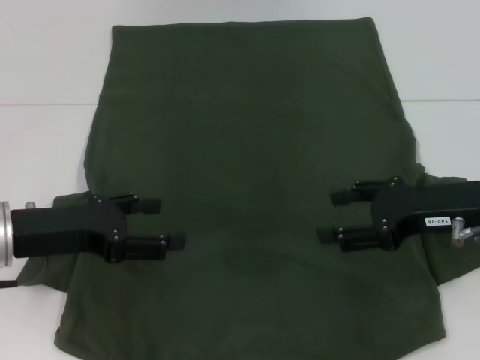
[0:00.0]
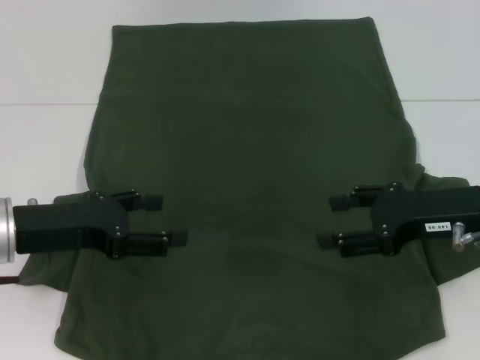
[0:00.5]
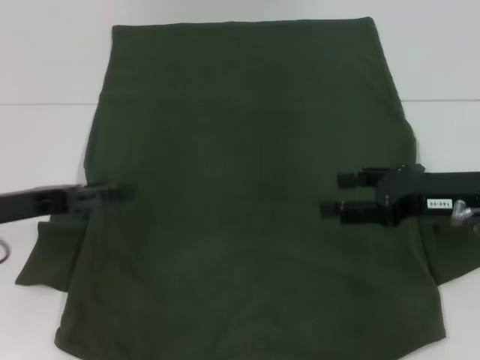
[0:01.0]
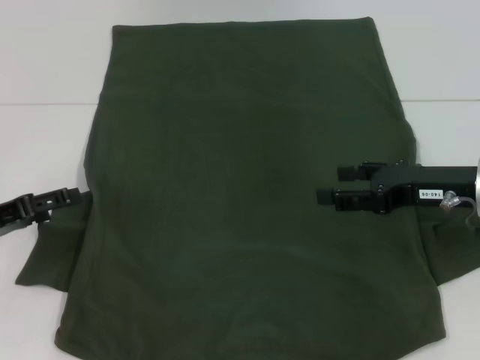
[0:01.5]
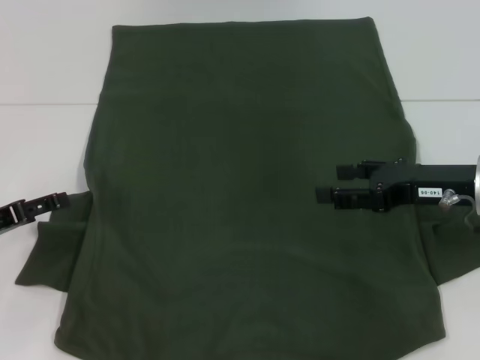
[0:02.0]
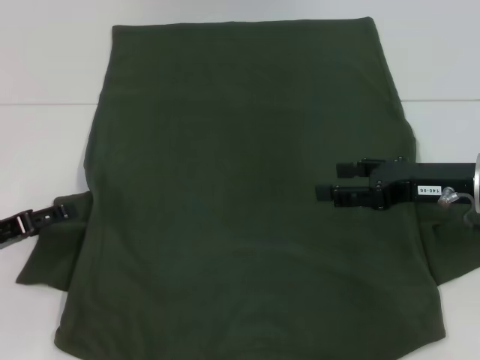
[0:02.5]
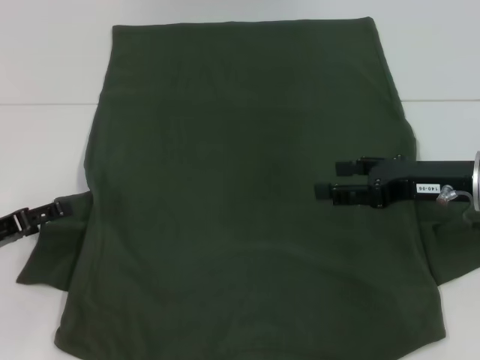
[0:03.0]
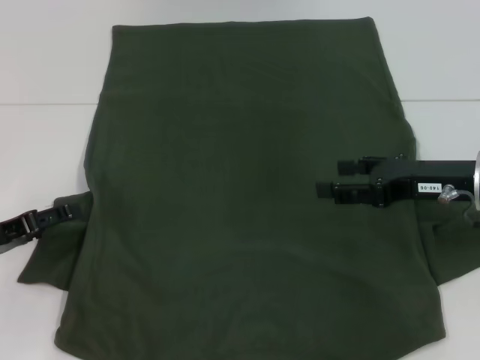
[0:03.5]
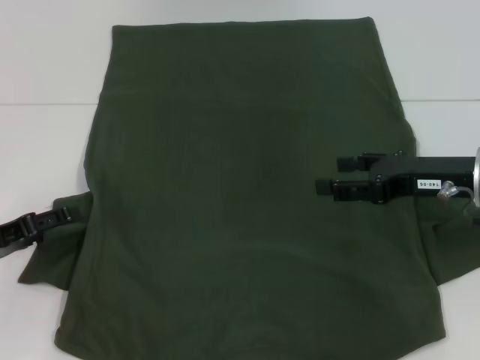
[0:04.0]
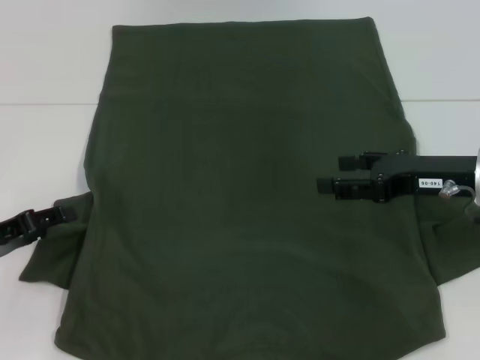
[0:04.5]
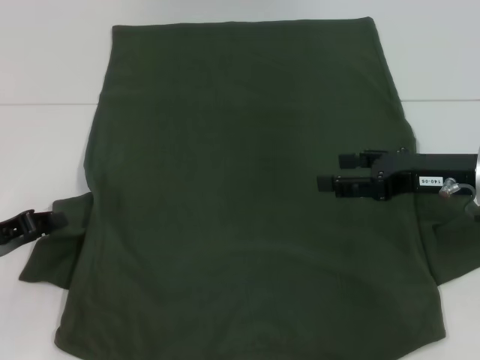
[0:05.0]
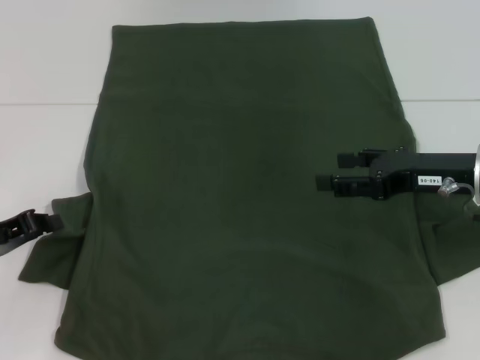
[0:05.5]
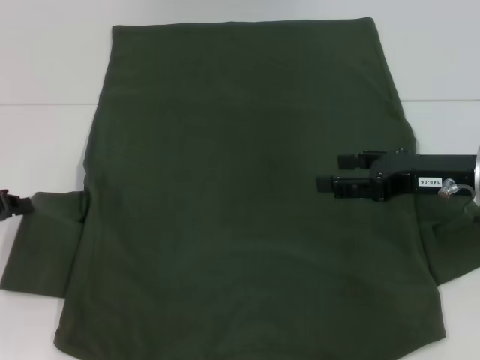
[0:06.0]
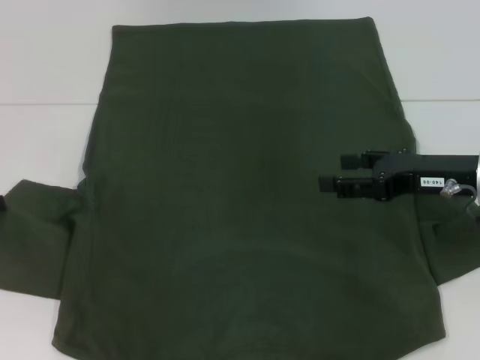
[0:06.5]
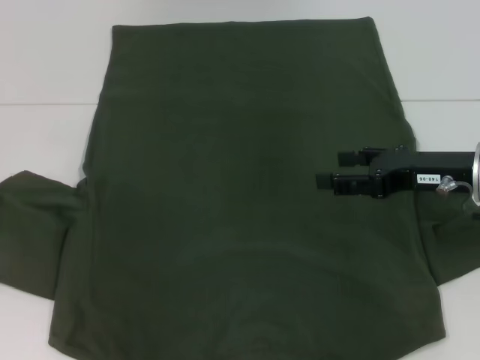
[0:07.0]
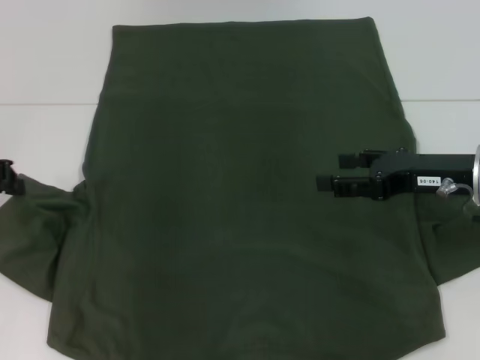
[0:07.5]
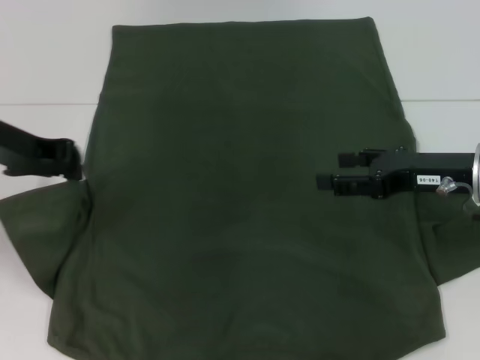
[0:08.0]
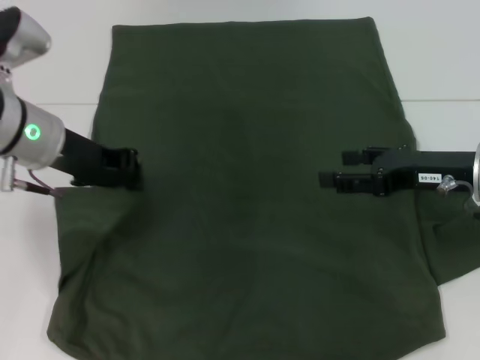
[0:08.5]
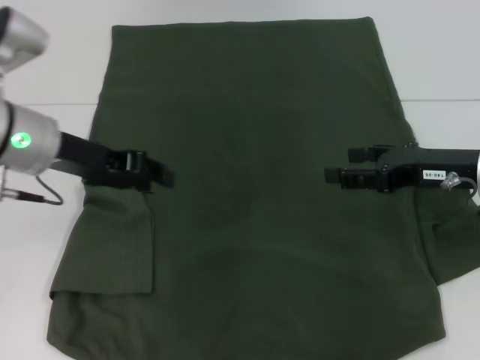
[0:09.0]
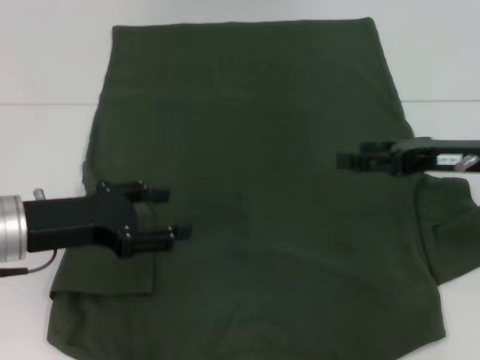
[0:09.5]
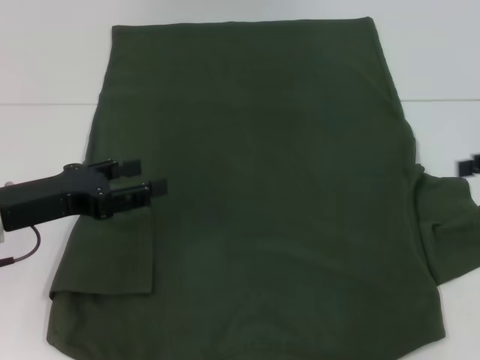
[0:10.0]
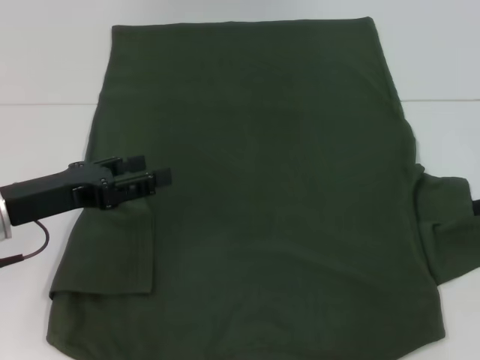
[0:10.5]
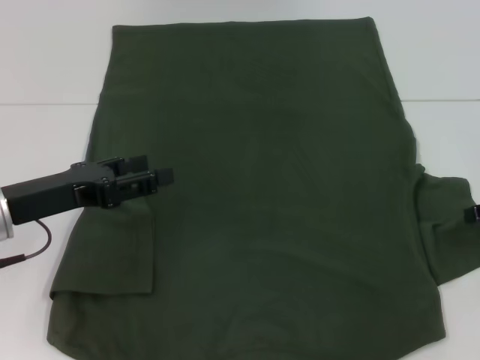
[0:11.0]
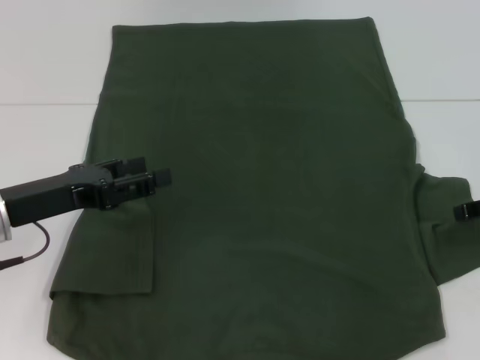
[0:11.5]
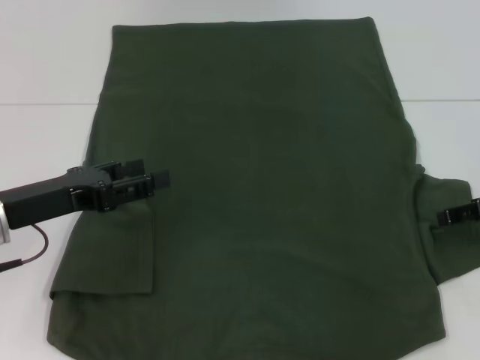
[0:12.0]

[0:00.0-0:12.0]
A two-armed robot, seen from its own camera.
Step, 0:00.0 to 0:08.5: Fold the bottom left sleeve with your left hand.
0:00.0 to 0:02.0: The left gripper shifts roughly 10 cm to the left.
0:02.0 to 0:04.0: The grippers stay close to where they were, moving slightly.
0:04.0 to 0:06.0: The left gripper closes its fingers.
0:06.0 to 0:08.0: The left gripper travels upward, to the right and forward by approximately 15 cm.
0:08.0 to 0:10.0: The left gripper goes some 10 cm backward and downward, and opens up, while the right gripper heads to the right, covering approximately 10 cm.
0:10.0 to 0:12.0: The right gripper is displaced downward by roughly 5 cm.

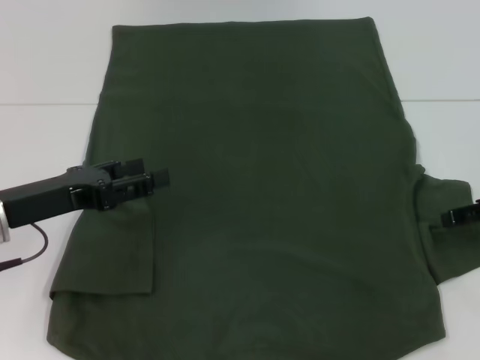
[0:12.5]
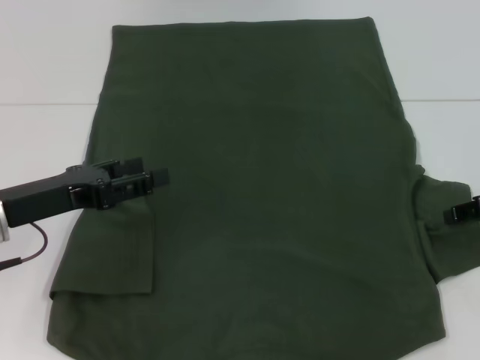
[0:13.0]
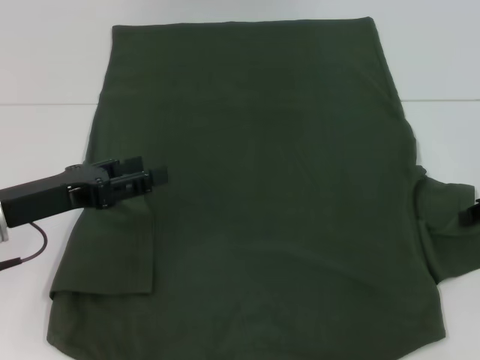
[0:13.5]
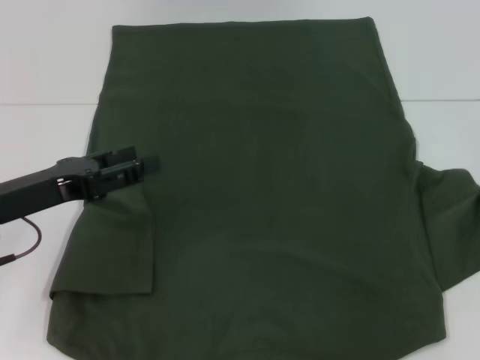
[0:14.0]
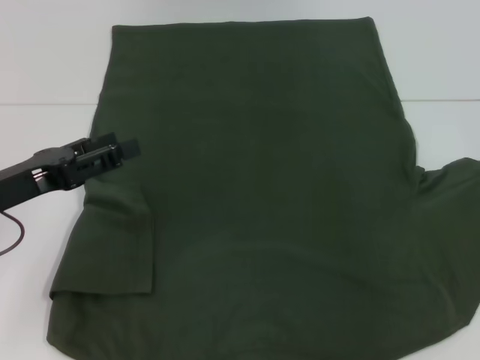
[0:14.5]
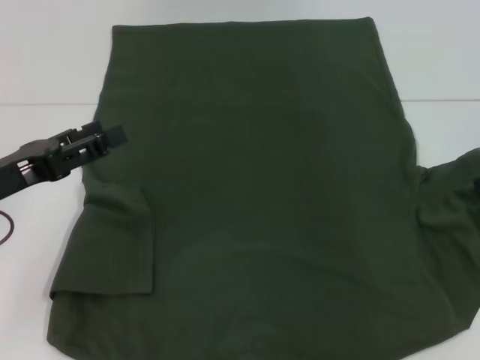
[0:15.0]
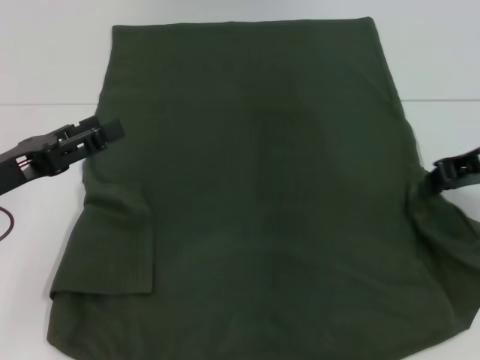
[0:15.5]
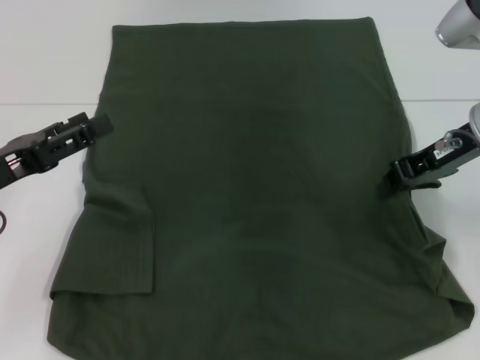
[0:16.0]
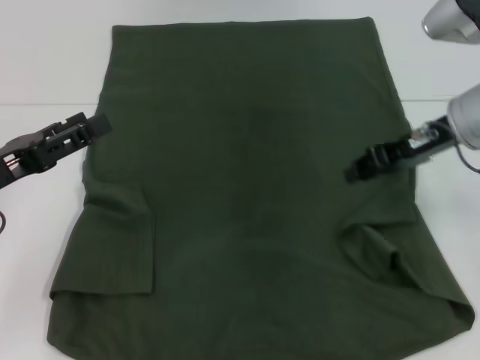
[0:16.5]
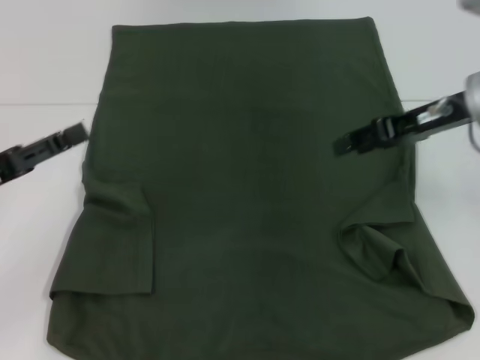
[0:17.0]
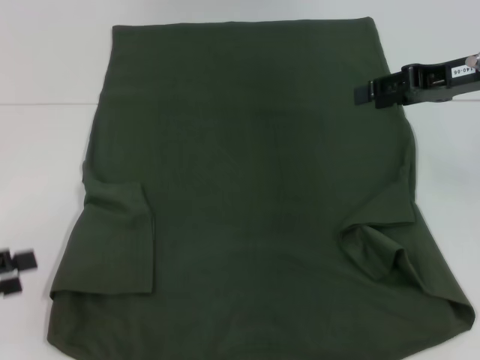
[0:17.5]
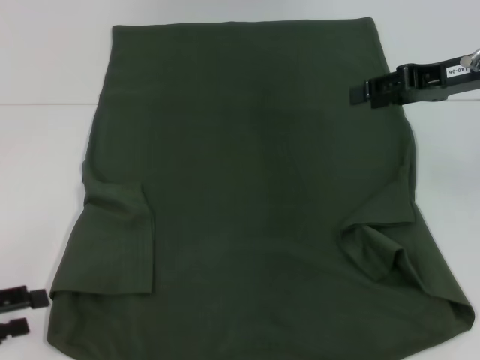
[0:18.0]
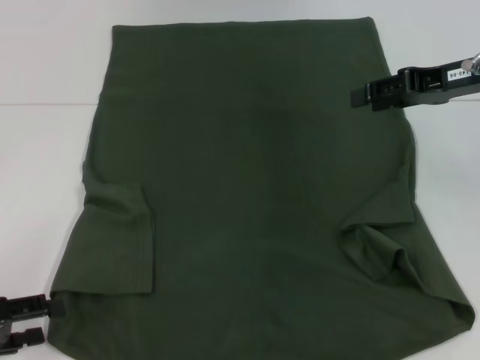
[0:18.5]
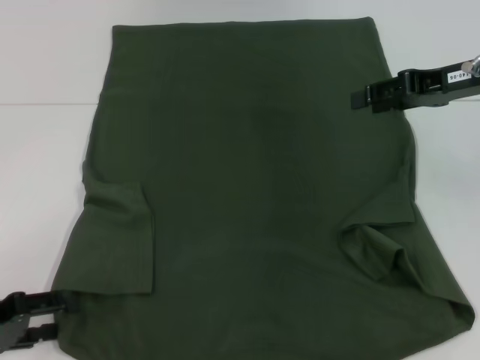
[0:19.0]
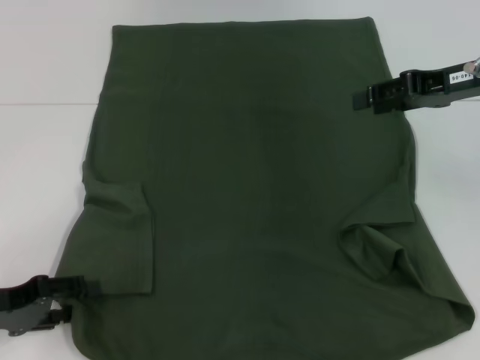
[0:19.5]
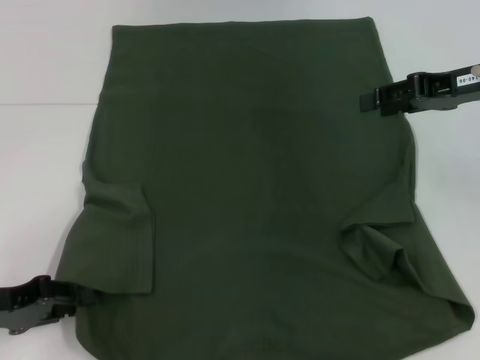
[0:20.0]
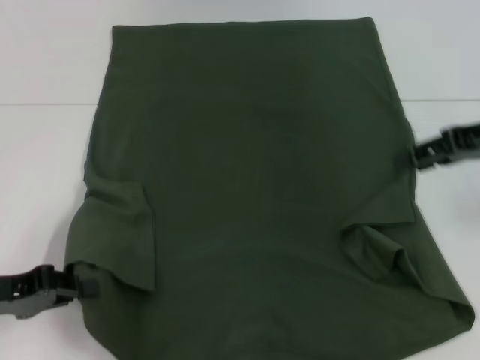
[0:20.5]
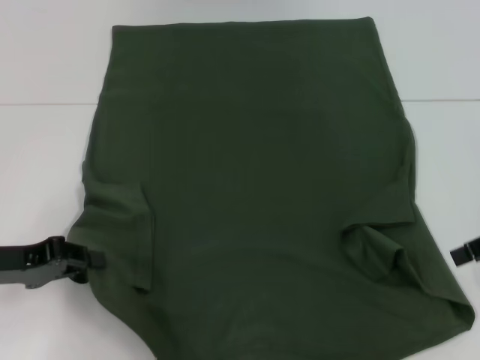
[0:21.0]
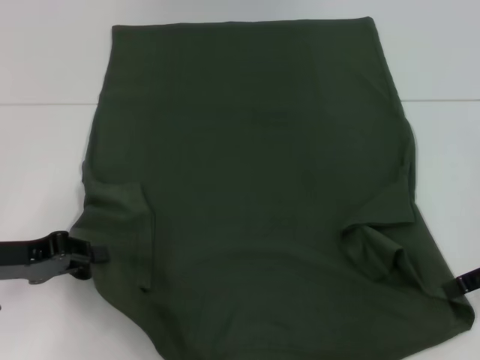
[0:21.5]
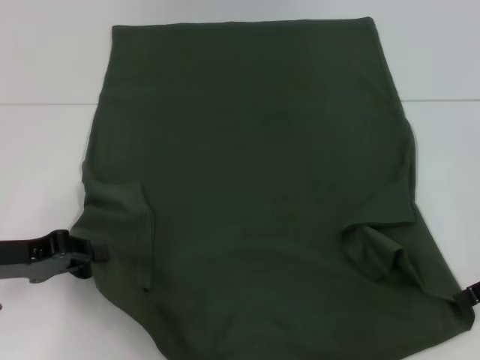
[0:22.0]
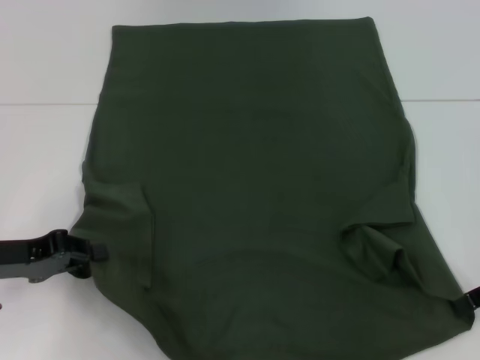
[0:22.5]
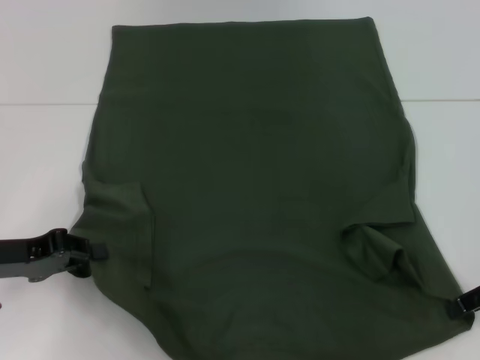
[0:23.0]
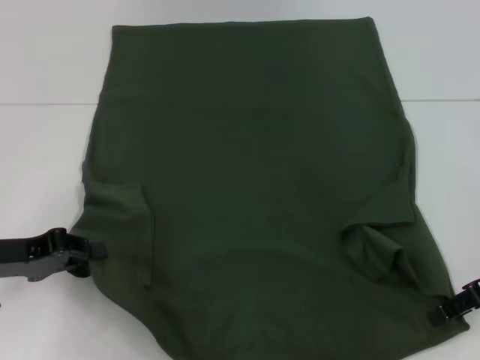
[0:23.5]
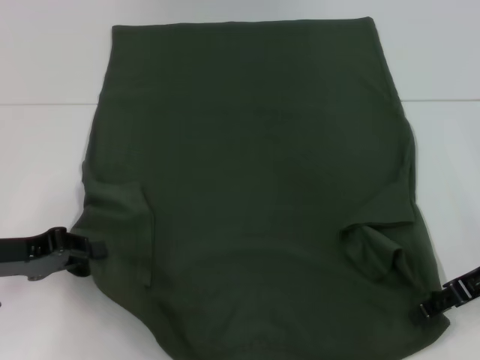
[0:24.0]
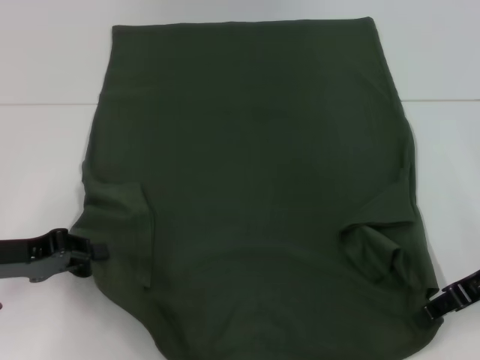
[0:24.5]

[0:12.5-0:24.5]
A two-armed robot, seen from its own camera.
Step, 0:12.5 to 0:16.5: Fold the bottom right sleeve with your right hand.
Step, 0:17.0 to 0:20.0: Grab the bottom left corner with your left hand.
0:12.5 to 0:14.5: The right gripper closes up.
0:14.5 to 0:16.5: The right gripper heads to the left, covering approximately 15 cm.
0:16.5 to 0:18.5: The left gripper is displaced backward, downward and to the left by approximately 10 cm. The right gripper moves some 5 cm, and opens its fingers.
0:18.5 to 0:20.5: The left gripper ends up about 5 cm from where it was, and closes up.
0:20.5 to 0:22.5: The right gripper is displaced downward and backward by roughly 10 cm.
0:22.5 to 0:24.5: The grippers make only small movements.

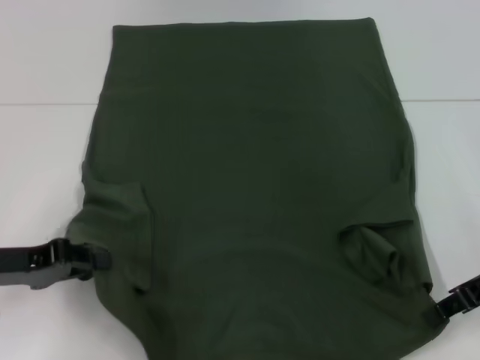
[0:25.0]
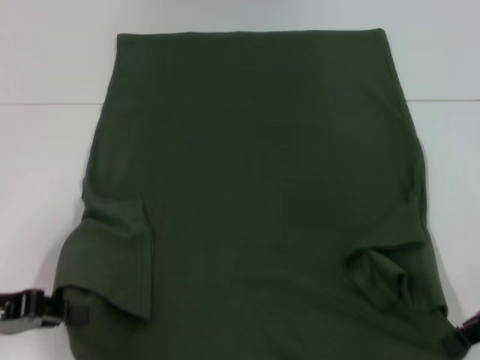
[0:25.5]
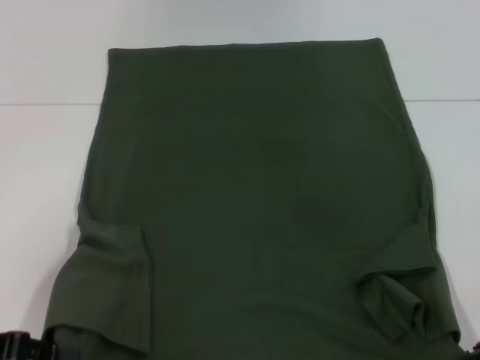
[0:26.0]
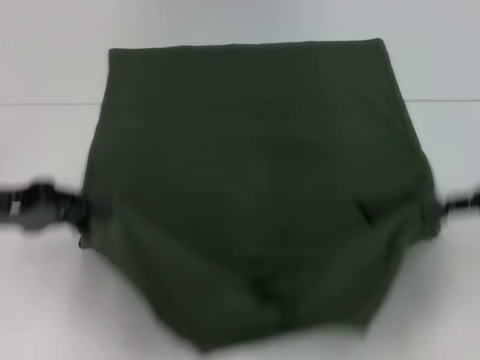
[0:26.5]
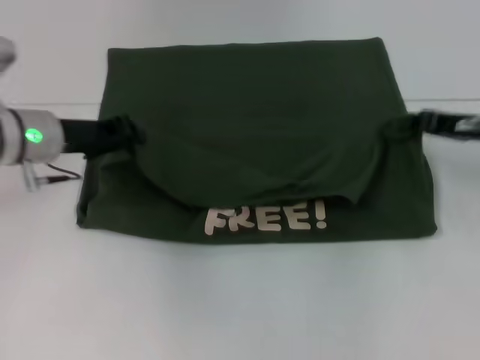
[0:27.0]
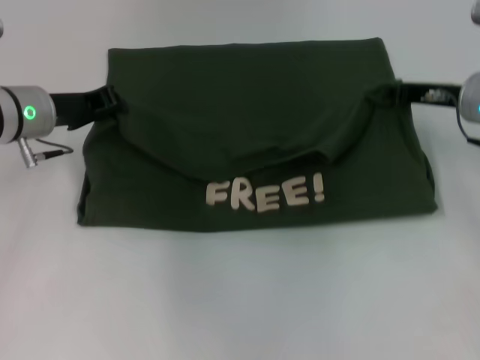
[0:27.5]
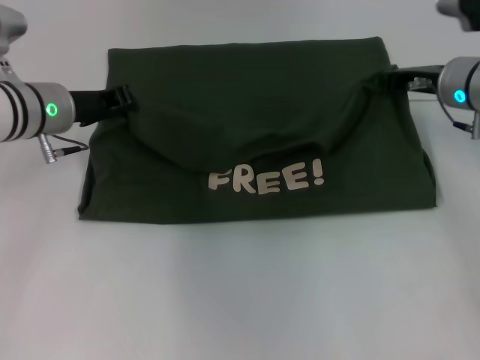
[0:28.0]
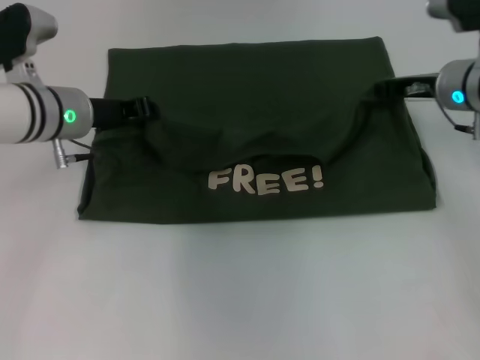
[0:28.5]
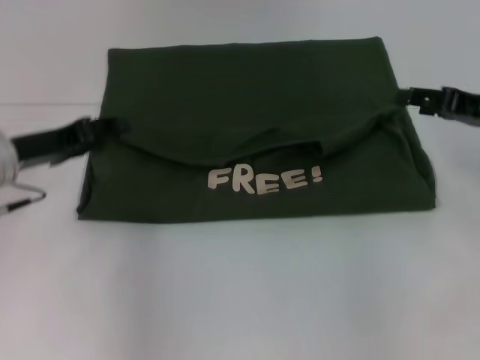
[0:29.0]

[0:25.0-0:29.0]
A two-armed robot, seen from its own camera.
Step, 0:25.0 to 0:28.5: Fold the clothes with your right hand.
0:25.0 to 0:27.0: The right gripper goes about 10 cm forward. The left gripper travels forward and to the right by roughly 15 cm.
0:27.0 to 0:29.0: The right gripper opens up, while the left gripper heads backward, covering approximately 5 cm, and opens up.
